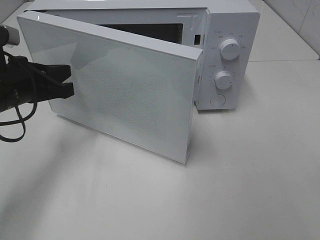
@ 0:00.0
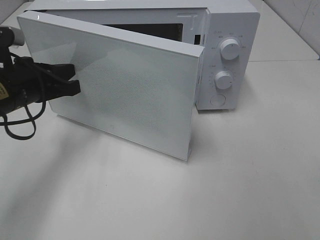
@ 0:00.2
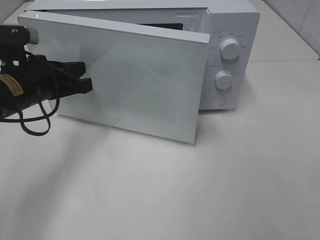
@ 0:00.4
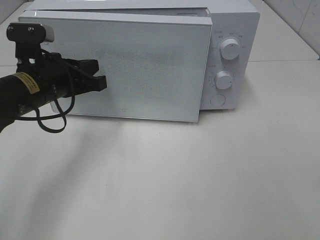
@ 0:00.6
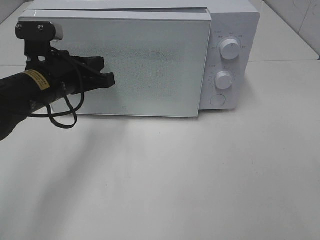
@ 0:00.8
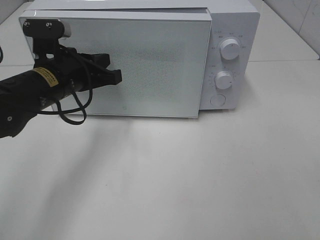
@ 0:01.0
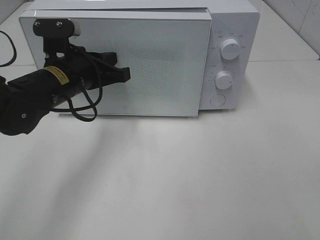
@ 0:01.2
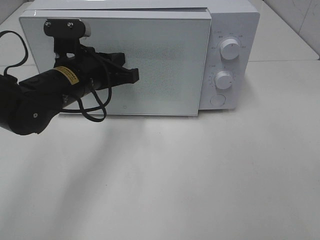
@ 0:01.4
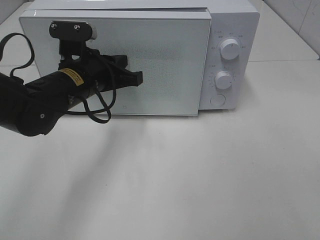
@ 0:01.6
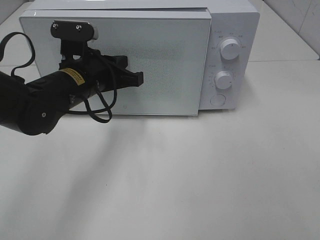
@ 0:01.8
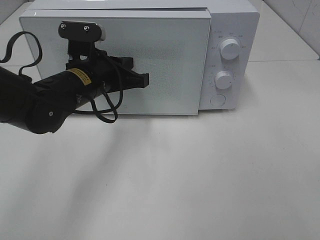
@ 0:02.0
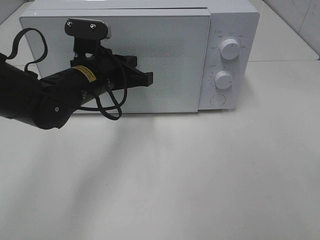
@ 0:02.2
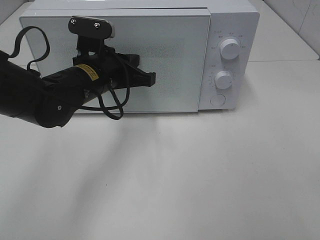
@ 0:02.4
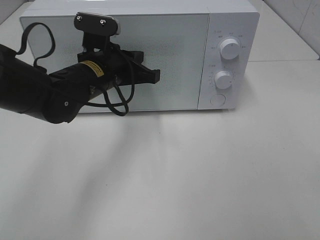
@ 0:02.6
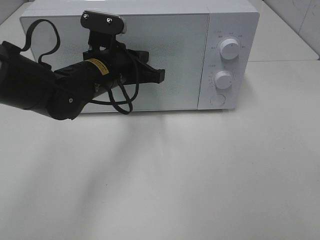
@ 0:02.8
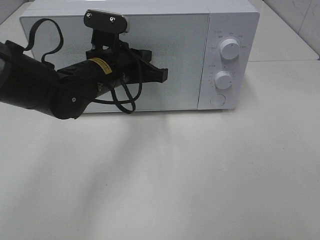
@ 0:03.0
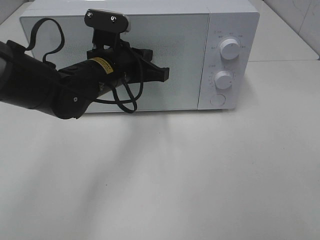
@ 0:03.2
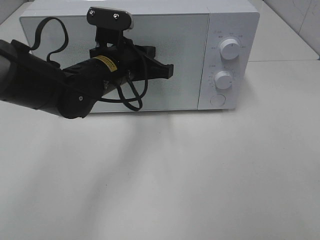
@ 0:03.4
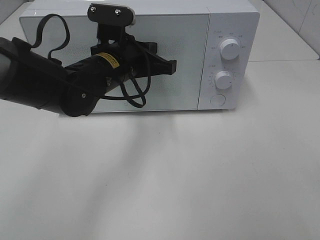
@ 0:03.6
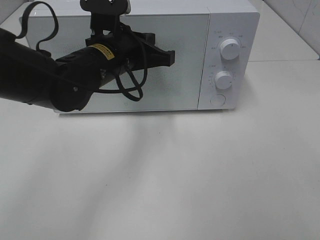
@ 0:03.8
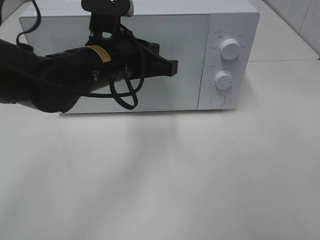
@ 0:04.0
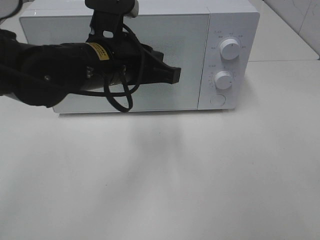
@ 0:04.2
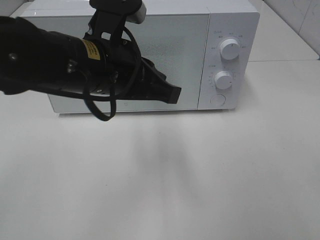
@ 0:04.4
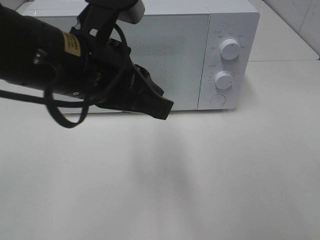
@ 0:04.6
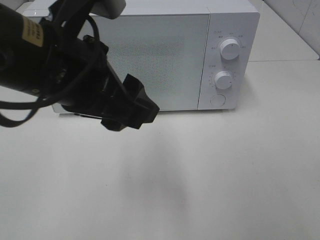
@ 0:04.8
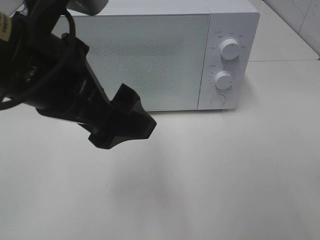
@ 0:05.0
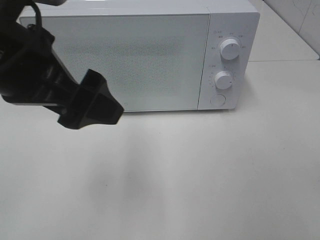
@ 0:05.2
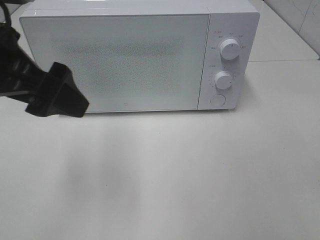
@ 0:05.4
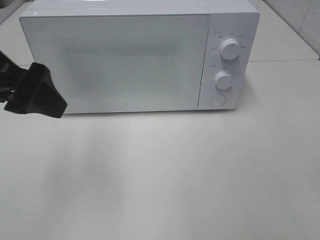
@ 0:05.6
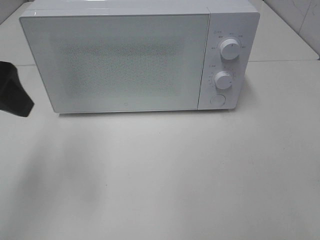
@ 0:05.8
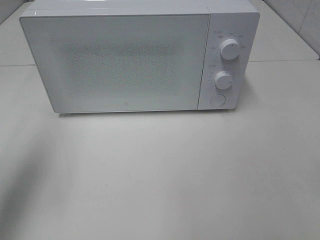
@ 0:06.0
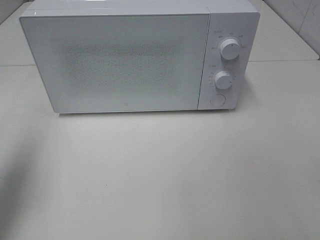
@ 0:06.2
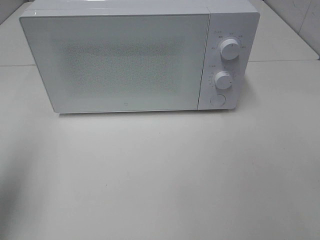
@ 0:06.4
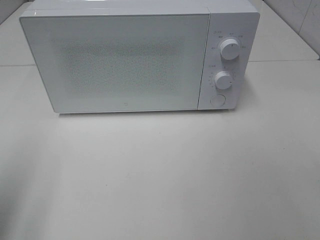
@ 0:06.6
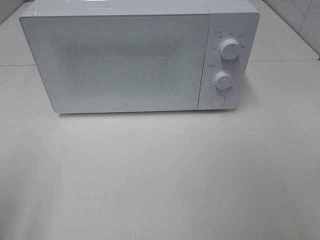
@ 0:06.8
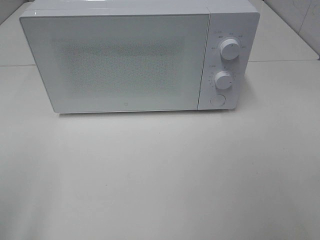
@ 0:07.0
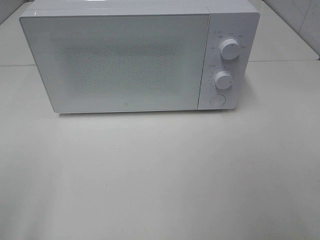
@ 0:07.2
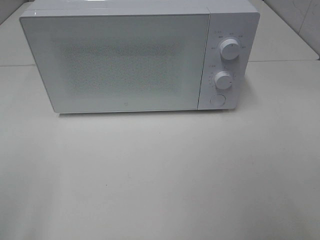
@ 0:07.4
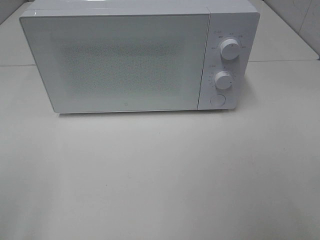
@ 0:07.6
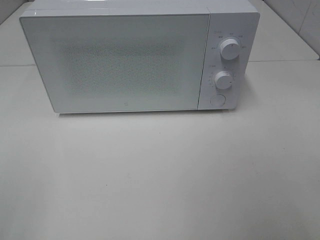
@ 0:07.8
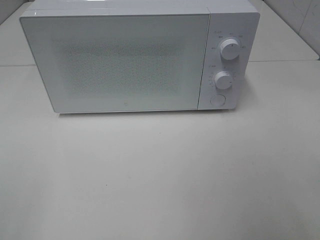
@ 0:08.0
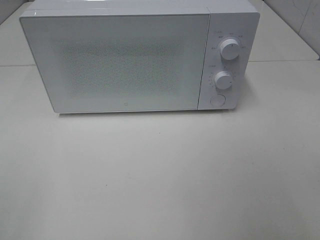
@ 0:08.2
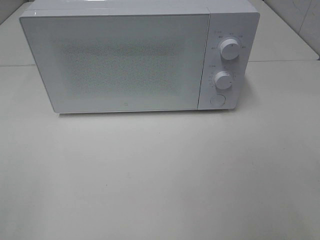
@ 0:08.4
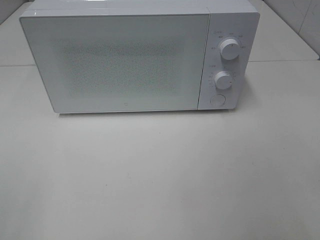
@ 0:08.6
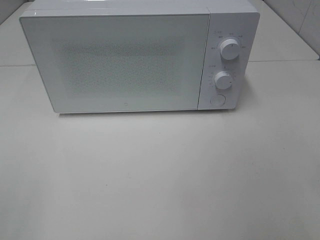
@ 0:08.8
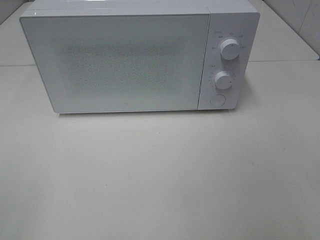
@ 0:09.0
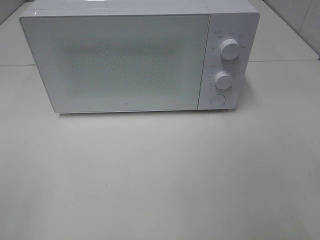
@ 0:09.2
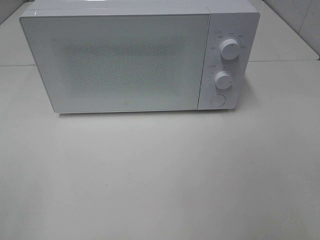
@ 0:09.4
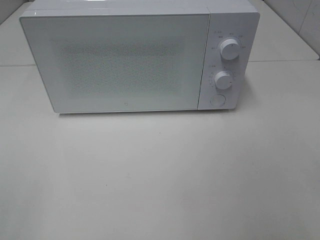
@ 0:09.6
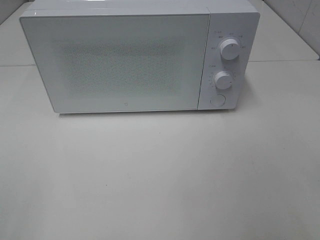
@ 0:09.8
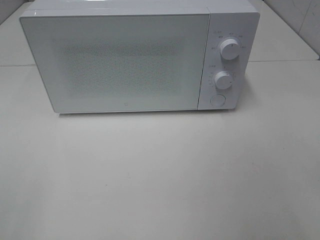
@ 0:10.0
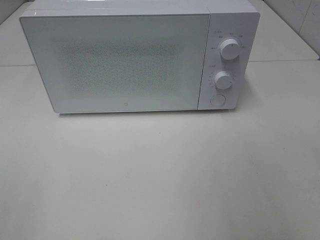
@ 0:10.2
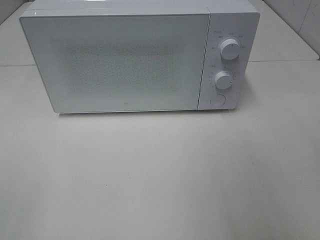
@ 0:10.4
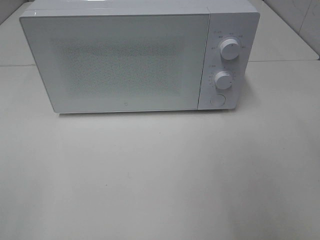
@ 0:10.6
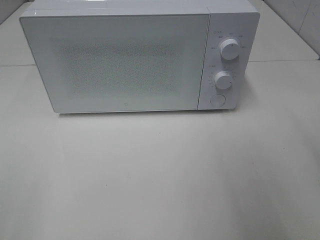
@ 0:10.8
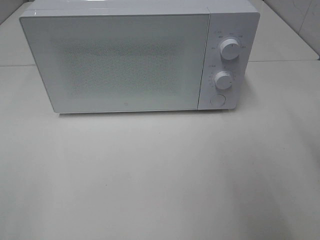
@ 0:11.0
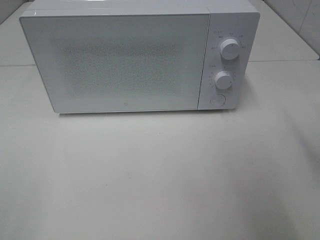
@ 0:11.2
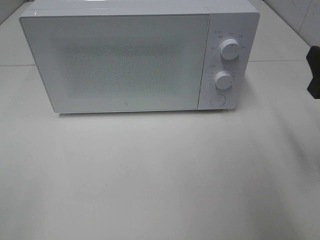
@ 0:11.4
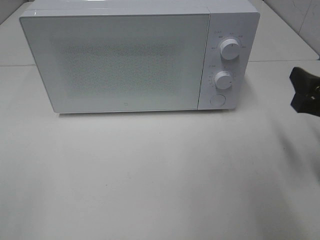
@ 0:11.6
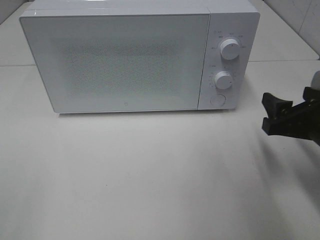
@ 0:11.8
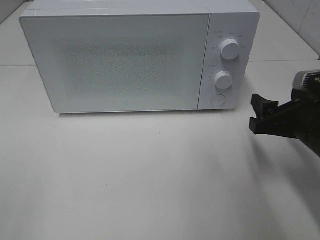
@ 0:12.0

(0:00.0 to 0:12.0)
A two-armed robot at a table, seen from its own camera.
Task of the whole recording: Heat the burger.
Step, 0:00.0 - 0:03.4: Left hand: close the microwave door.
0:00.0 - 0:01.6: The left gripper moves to the right, some 10 cm.
0:01.6 - 0:03.0: The grippers make only small movements.
0:03.0 - 0:04.4: The left gripper goes about 15 cm backward and upward.
0:04.4 - 0:06.0: The left gripper heads to the left, covering about 20 cm, and opens.
0:06.0 - 0:07.6: The left gripper shifts roughly 20 cm backward.
0:10.4 - 0:12.0: The right gripper goes some 20 cm downward and forward.

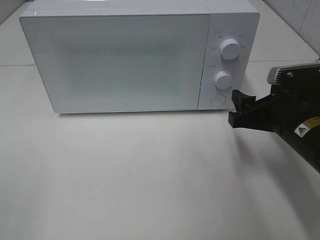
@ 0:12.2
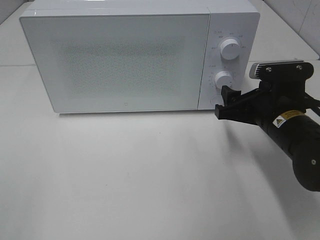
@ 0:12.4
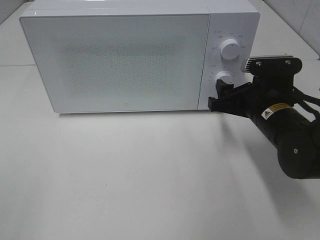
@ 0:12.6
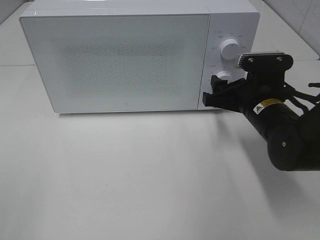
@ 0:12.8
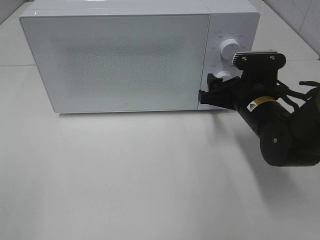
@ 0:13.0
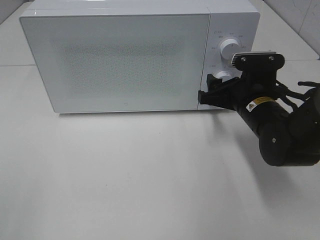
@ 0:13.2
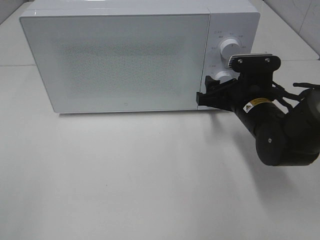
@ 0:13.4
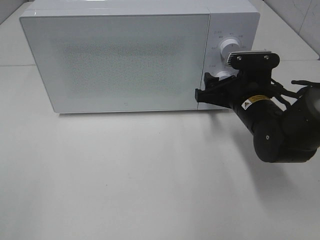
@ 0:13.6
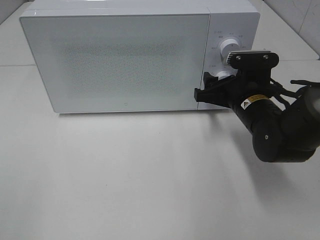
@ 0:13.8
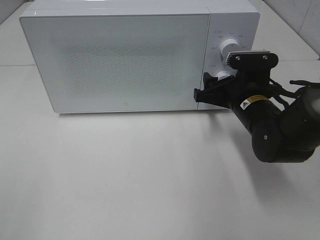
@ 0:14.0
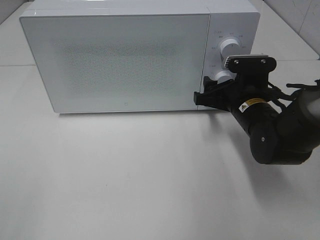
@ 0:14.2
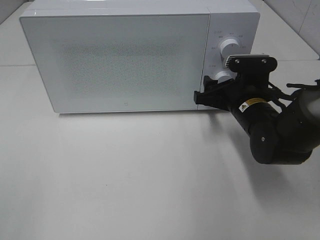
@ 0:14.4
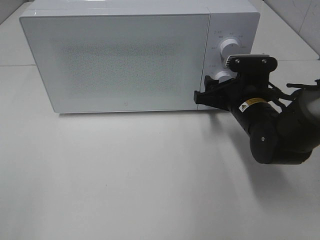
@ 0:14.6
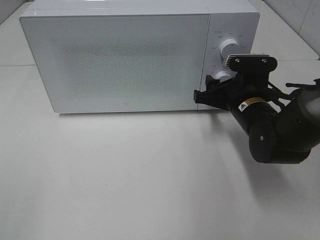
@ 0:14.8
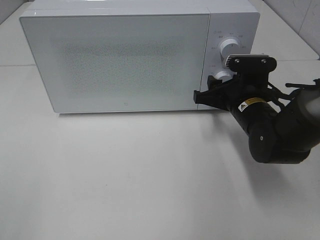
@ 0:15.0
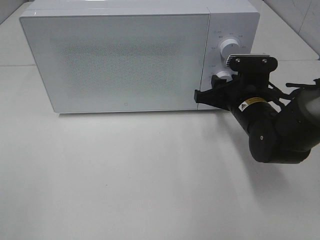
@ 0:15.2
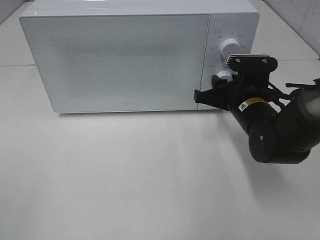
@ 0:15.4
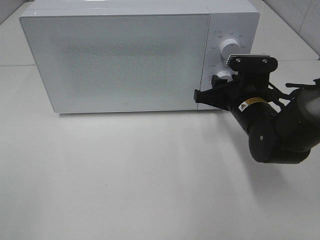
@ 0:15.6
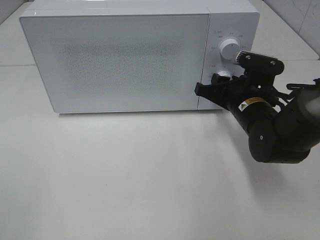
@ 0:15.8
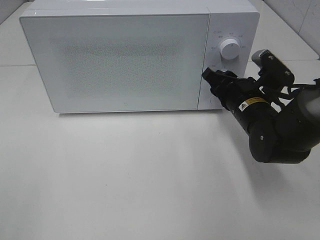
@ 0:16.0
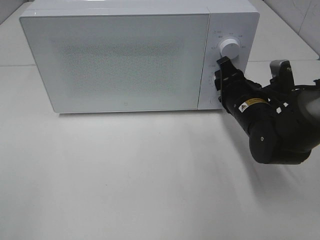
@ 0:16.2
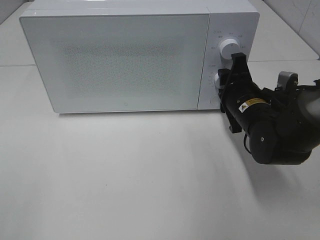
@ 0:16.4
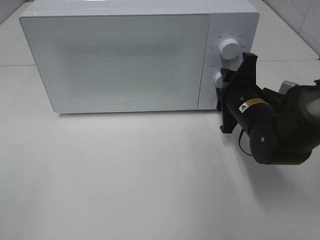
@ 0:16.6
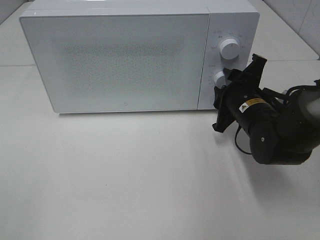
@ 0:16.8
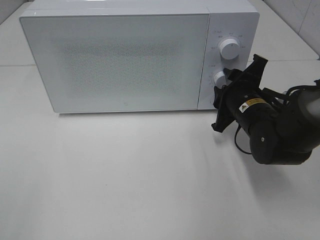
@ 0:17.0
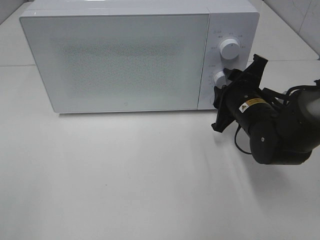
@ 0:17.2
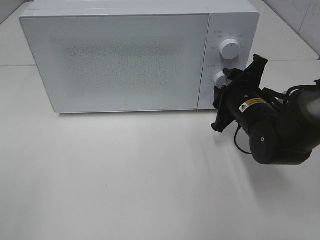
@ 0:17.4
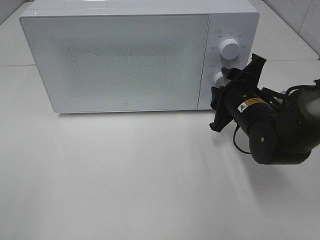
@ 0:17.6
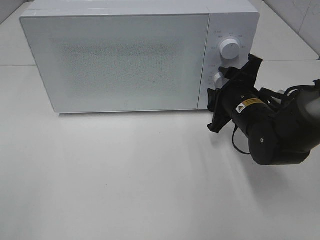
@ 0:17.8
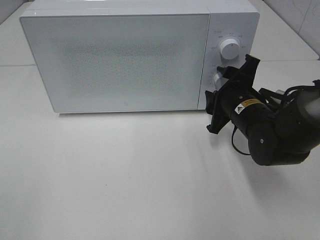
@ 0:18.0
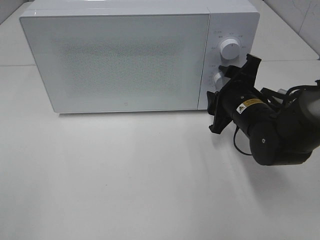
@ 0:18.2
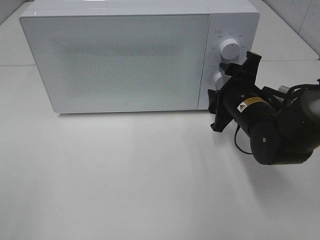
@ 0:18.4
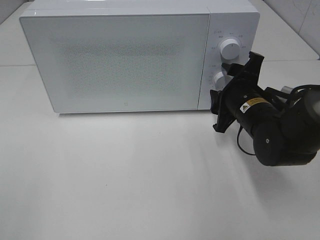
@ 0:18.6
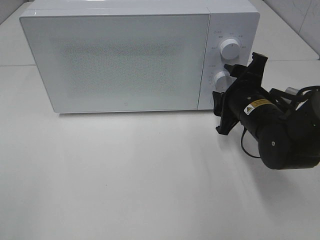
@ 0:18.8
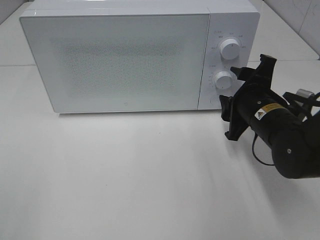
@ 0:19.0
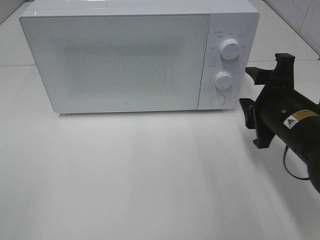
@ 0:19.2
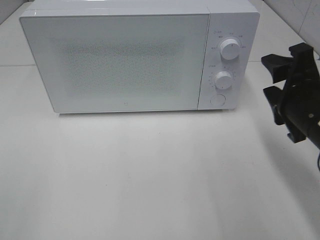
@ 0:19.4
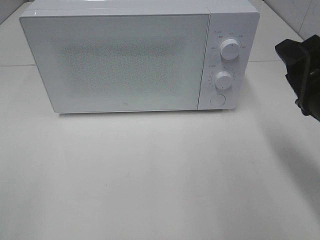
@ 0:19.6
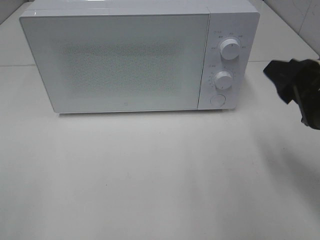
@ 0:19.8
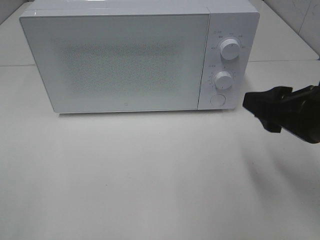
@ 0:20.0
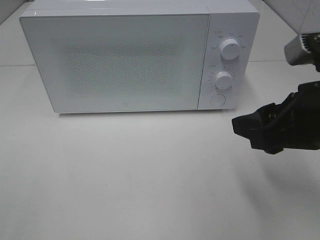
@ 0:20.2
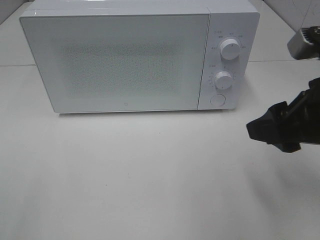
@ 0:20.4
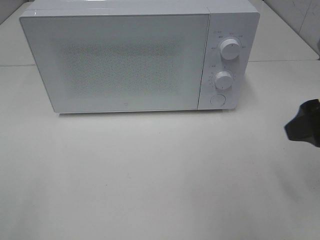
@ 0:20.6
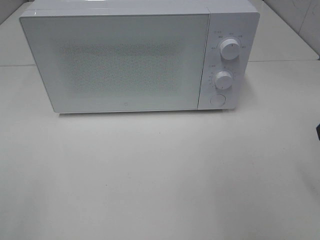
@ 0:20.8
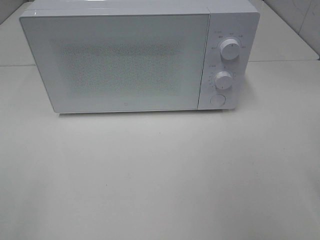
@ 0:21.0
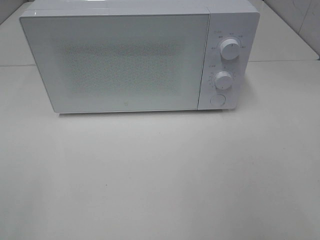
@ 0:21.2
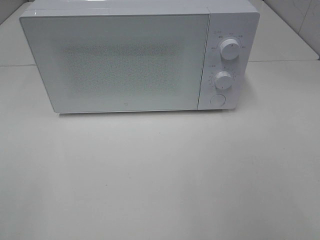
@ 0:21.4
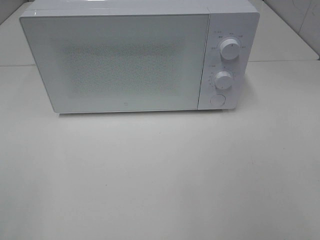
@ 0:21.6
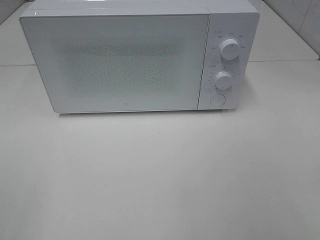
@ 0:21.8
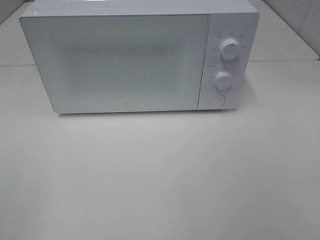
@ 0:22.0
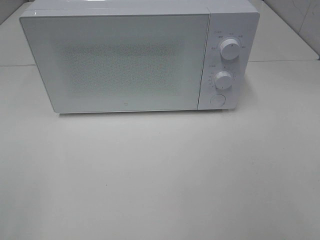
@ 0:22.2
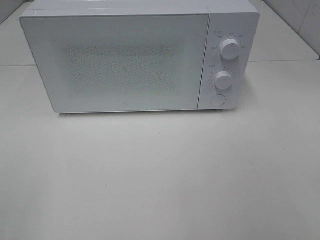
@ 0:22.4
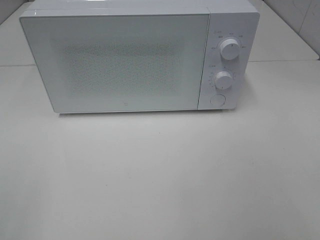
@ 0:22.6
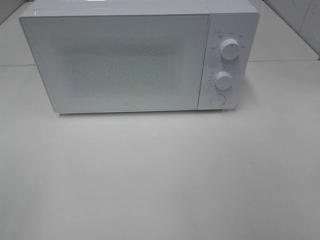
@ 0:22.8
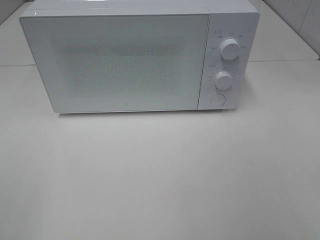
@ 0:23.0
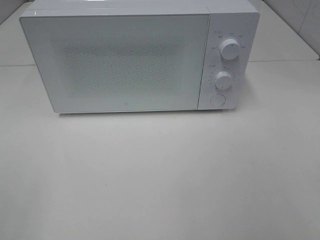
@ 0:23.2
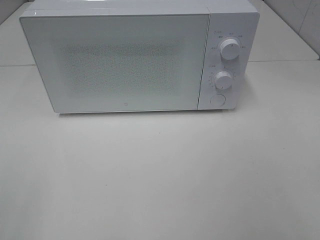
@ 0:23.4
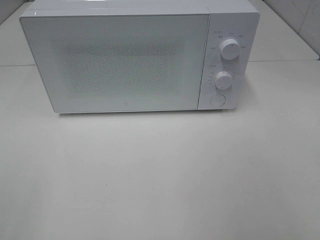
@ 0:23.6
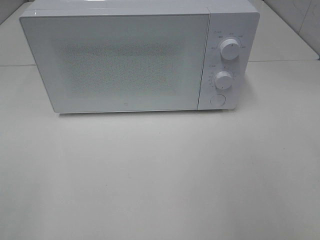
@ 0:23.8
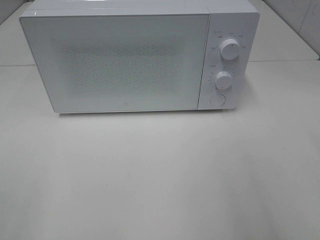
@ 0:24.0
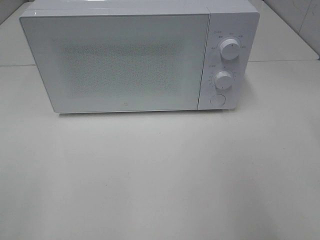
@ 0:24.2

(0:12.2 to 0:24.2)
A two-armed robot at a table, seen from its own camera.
Task of the whole recording: Heat the burger.
Step, 0:12.2 - 0:17.6: Right hand: twist timer button.
0:12.2 - 0:13.8: The right gripper is displaced forward by some 10 cm.
0:13.8 - 0:15.2: Both grippers stay put.
0:16.6 - 0:18.2: There are only small adjustments of the grippers.
0:18.2 - 0:19.8: The right gripper travels backward, upward and to the right by approximately 20 cm.
0:19.8 - 0:21.2: The right gripper heads upward, backward and to the right, covering about 15 cm.
